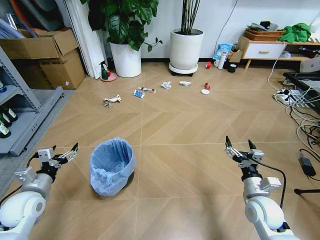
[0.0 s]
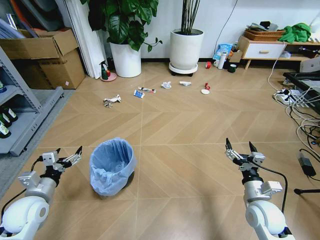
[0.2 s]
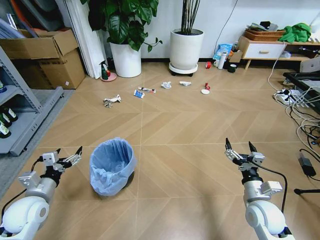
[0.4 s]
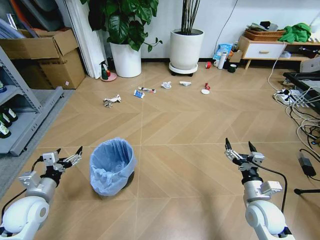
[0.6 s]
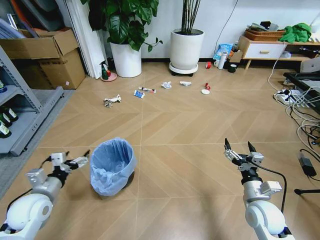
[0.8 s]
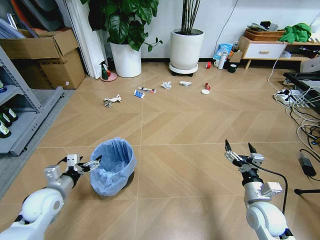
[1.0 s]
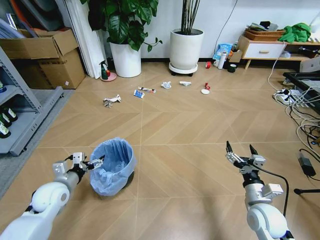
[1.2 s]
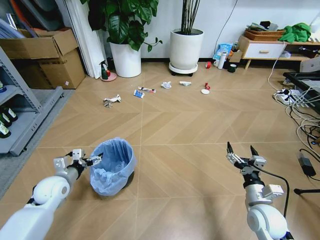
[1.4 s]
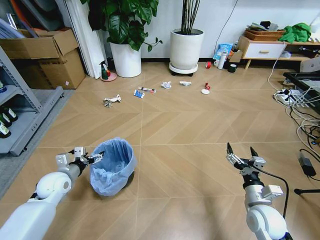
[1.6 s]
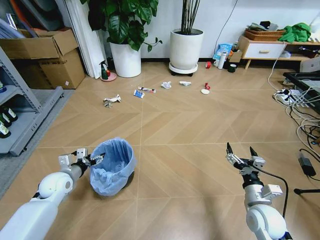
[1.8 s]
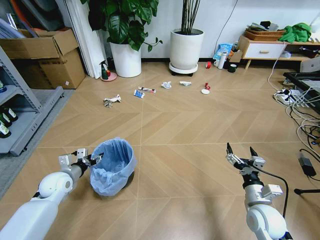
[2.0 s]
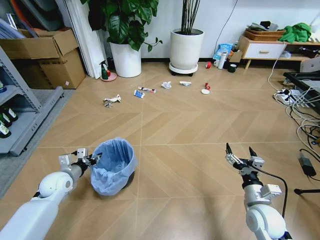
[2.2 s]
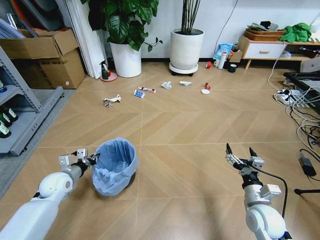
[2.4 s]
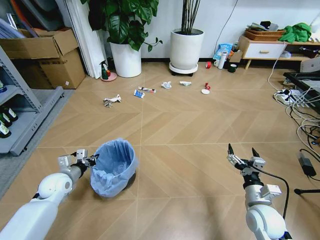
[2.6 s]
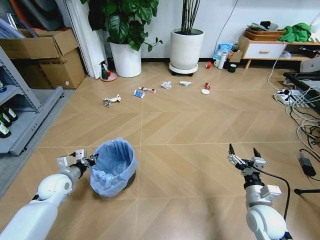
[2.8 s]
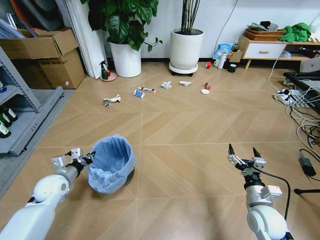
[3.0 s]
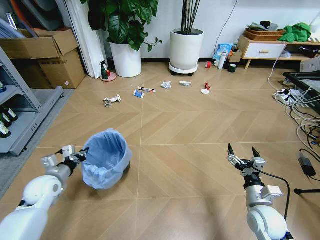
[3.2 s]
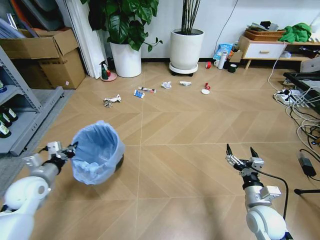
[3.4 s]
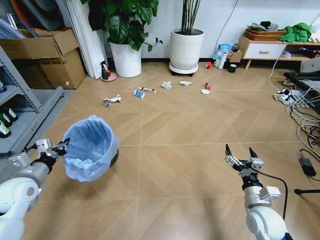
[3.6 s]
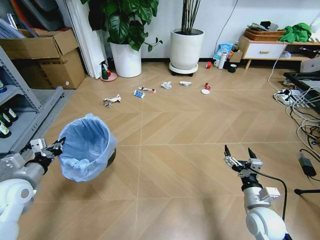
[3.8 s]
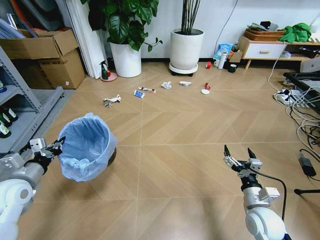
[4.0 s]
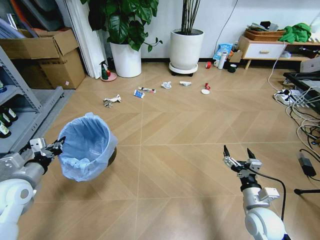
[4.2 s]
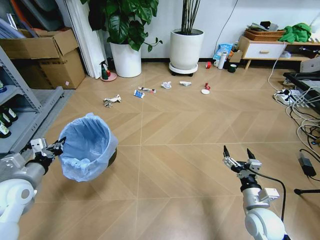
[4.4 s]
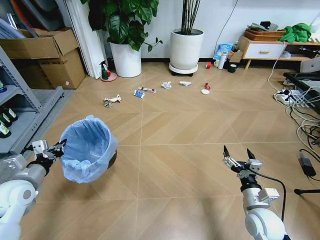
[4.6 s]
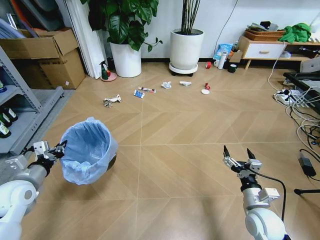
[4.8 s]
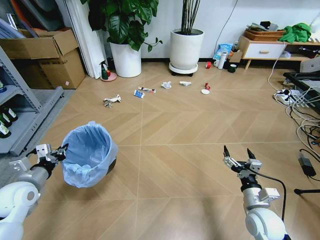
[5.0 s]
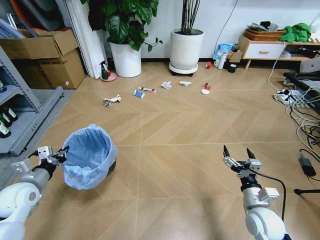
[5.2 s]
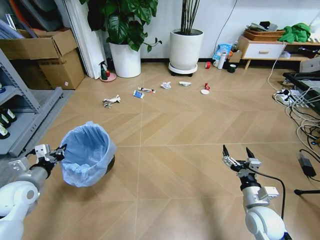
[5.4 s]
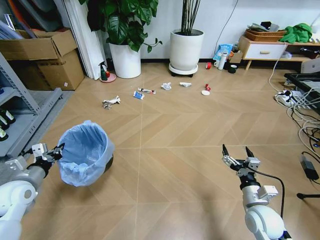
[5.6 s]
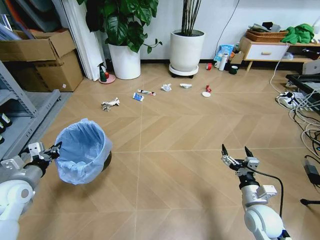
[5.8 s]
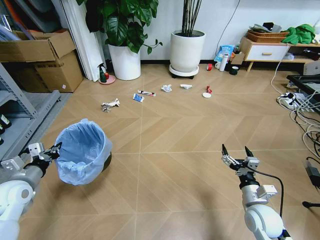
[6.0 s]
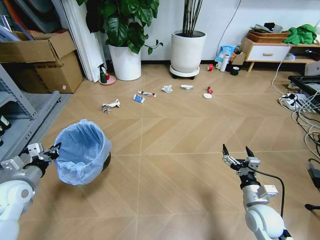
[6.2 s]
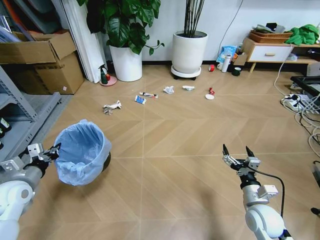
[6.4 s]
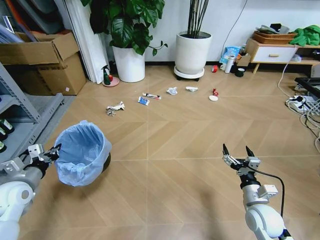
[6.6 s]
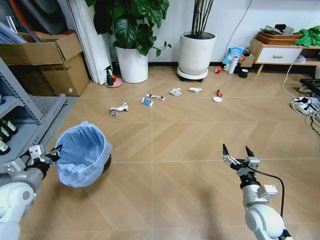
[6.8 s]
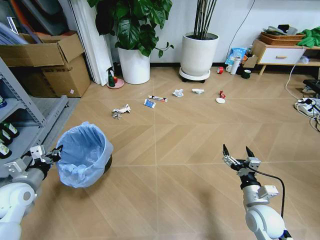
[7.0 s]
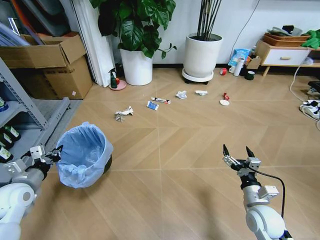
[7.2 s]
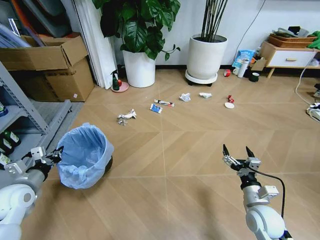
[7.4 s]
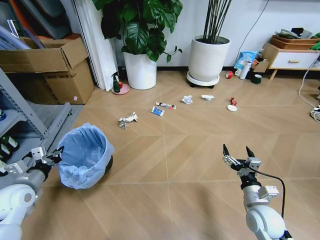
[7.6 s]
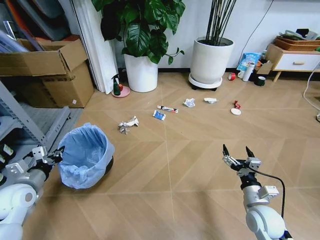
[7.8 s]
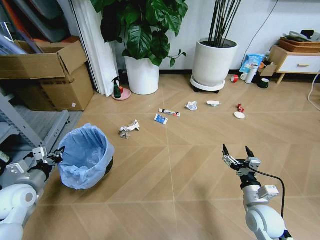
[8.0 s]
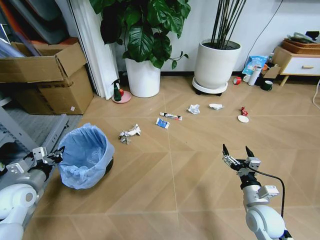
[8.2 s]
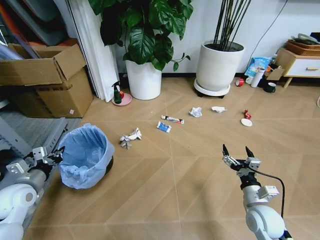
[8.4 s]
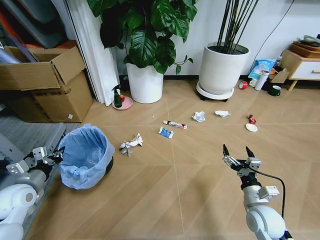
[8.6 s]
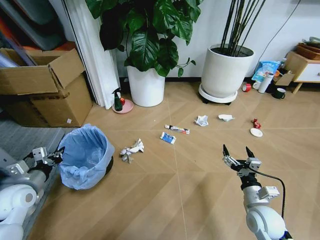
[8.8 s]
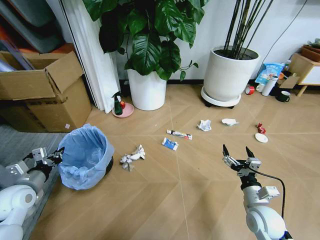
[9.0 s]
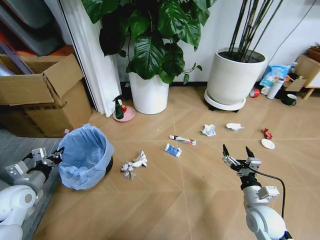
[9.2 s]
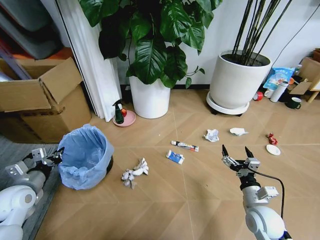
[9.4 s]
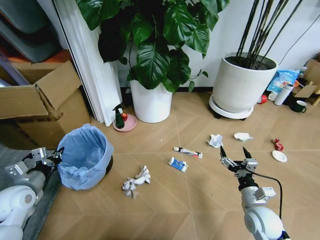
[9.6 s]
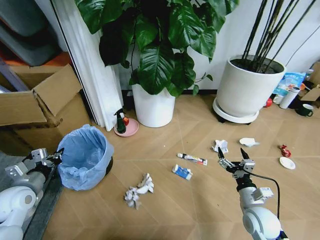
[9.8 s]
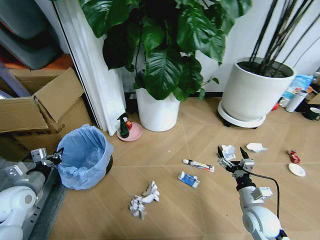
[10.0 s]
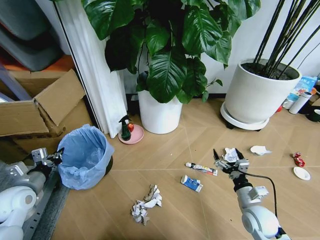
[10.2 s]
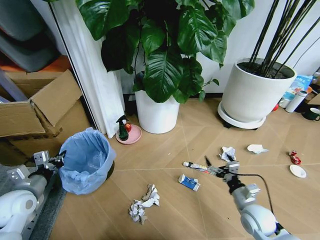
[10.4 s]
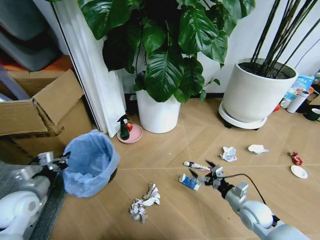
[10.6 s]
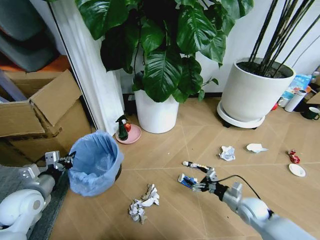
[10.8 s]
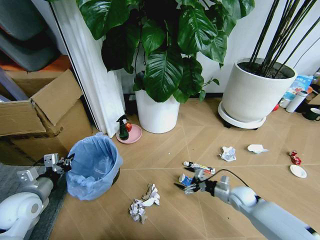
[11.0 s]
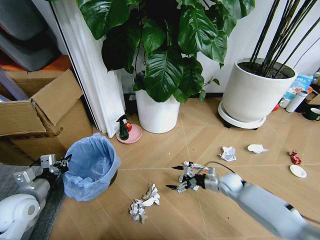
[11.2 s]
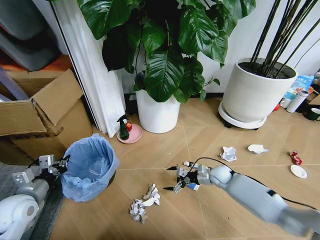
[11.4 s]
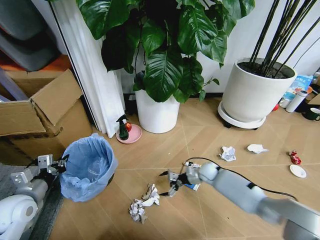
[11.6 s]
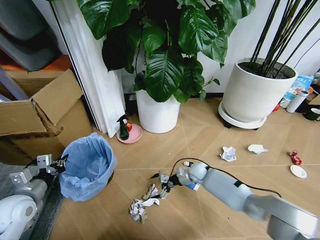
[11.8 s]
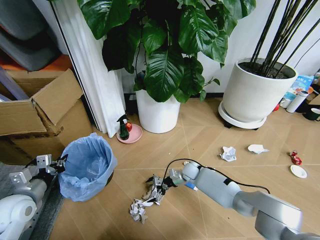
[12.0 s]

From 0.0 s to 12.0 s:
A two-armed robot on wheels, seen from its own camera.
Task of the whole recording: Pick up the trash bin and place the garbage on the floor into it.
From 1.6 s to 3.0 s: The left gripper closes its fingers.
From 3.0 s to 4.4 s: The left gripper travels upward and backward by approximately 10 cm.
From 10.4 s to 12.0 s: The right gripper travels forward and to the left by about 30 cm.

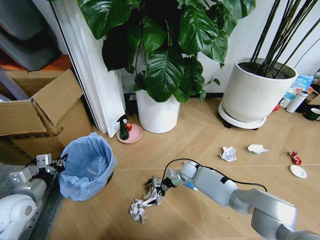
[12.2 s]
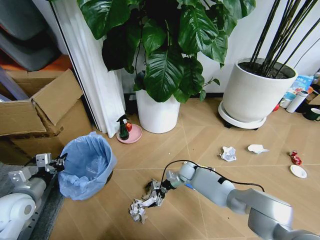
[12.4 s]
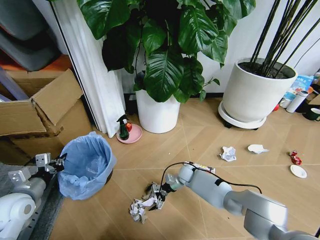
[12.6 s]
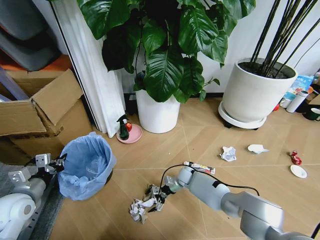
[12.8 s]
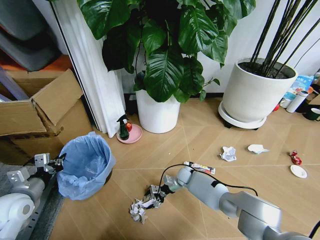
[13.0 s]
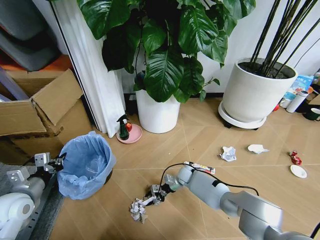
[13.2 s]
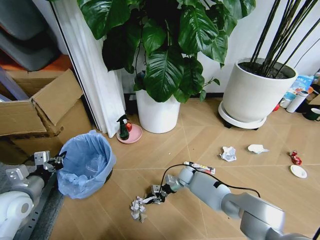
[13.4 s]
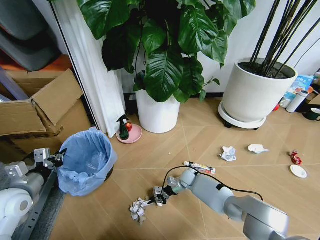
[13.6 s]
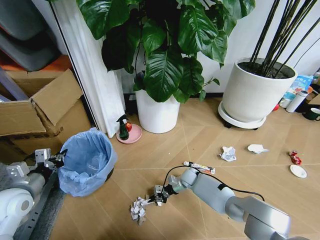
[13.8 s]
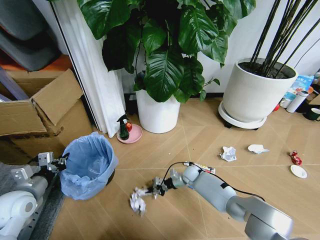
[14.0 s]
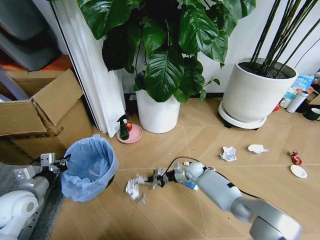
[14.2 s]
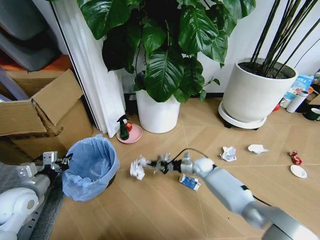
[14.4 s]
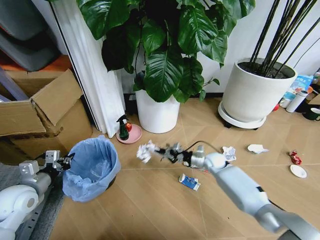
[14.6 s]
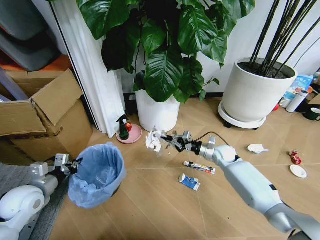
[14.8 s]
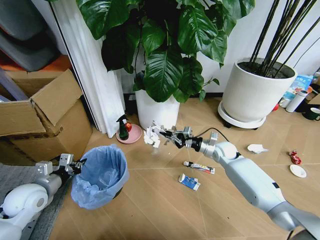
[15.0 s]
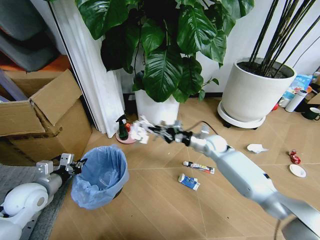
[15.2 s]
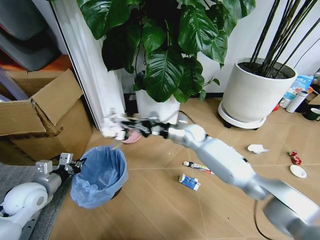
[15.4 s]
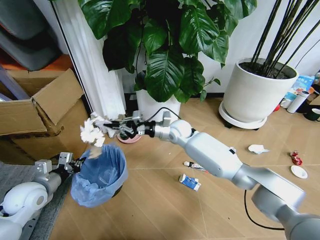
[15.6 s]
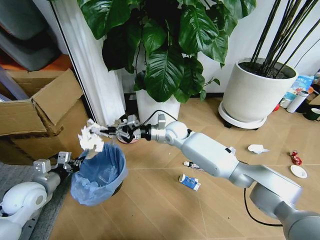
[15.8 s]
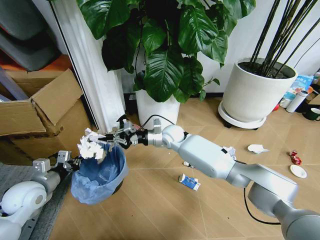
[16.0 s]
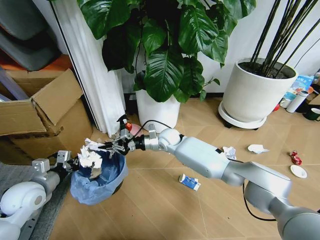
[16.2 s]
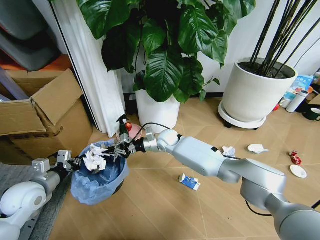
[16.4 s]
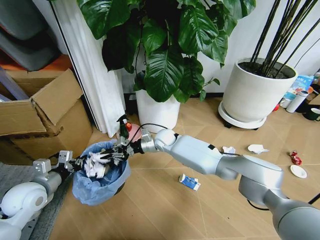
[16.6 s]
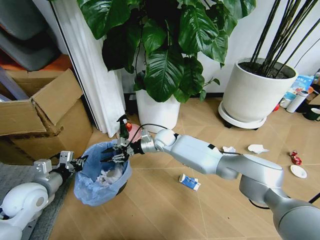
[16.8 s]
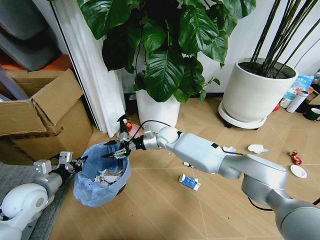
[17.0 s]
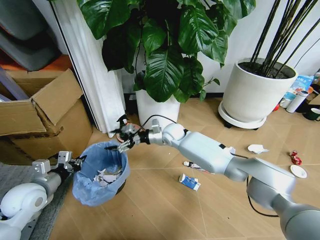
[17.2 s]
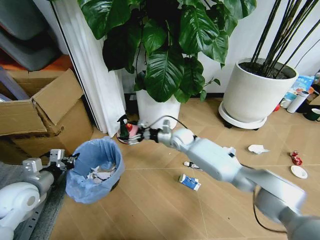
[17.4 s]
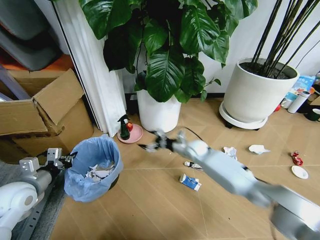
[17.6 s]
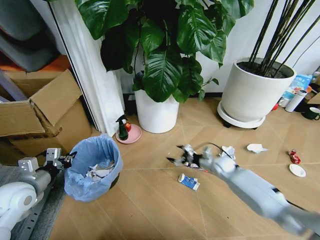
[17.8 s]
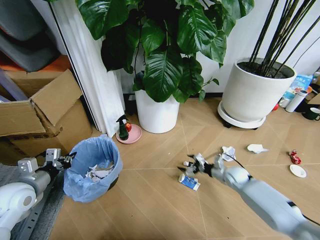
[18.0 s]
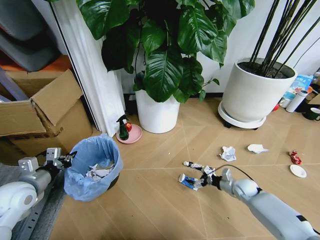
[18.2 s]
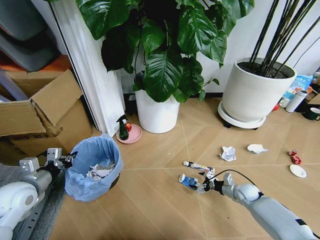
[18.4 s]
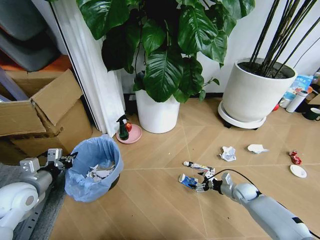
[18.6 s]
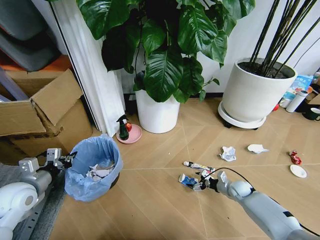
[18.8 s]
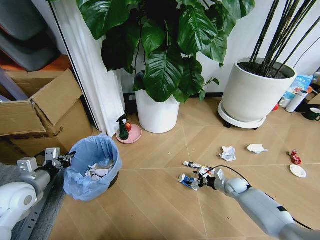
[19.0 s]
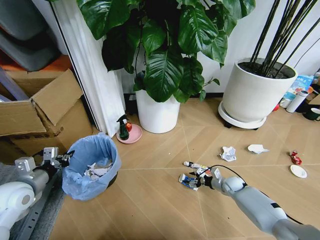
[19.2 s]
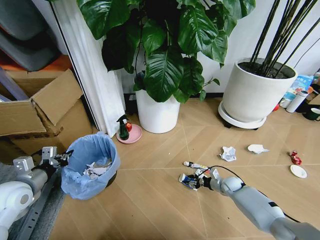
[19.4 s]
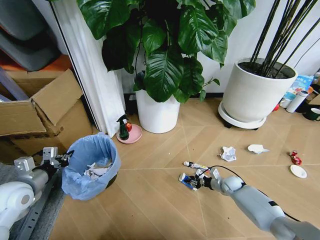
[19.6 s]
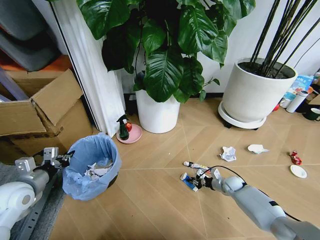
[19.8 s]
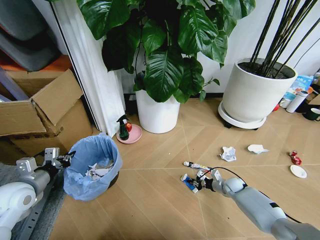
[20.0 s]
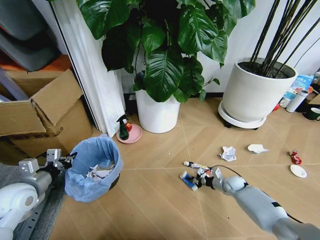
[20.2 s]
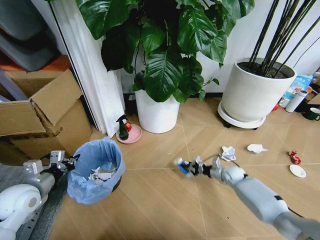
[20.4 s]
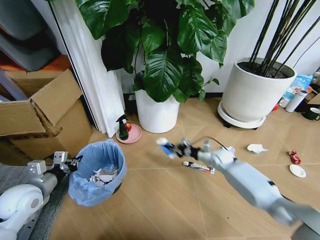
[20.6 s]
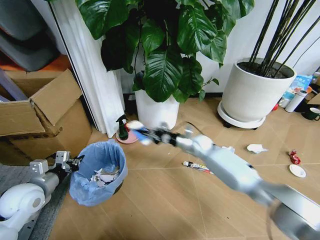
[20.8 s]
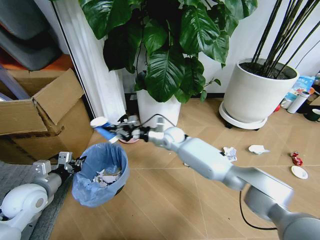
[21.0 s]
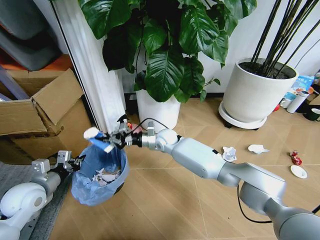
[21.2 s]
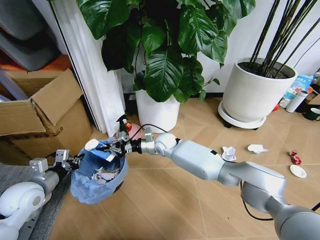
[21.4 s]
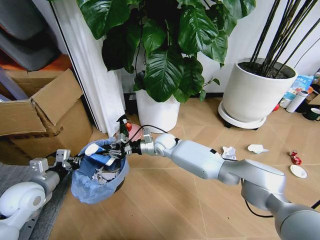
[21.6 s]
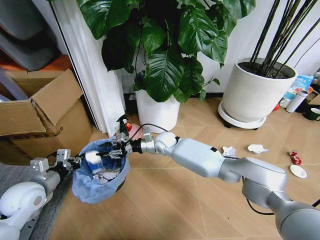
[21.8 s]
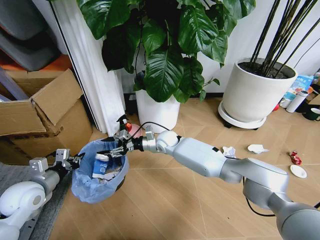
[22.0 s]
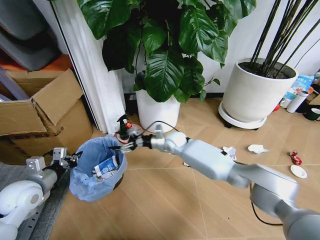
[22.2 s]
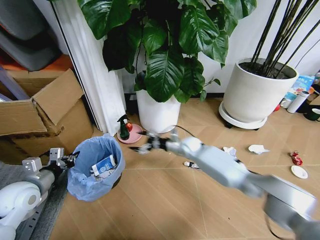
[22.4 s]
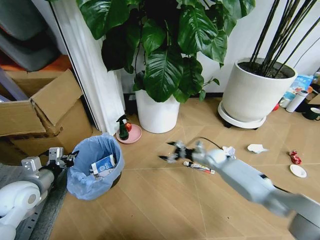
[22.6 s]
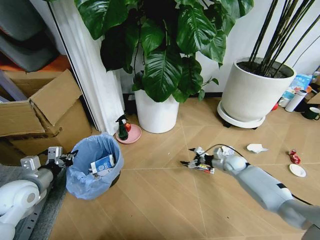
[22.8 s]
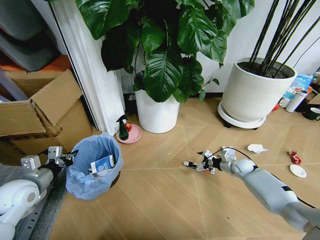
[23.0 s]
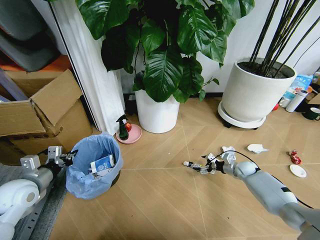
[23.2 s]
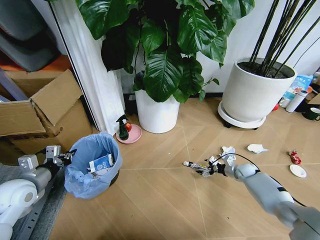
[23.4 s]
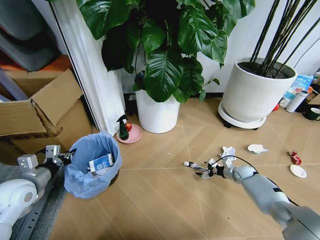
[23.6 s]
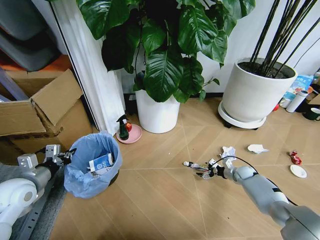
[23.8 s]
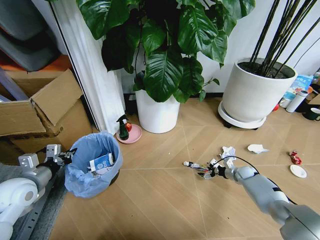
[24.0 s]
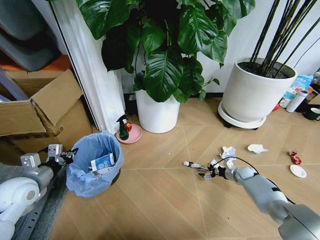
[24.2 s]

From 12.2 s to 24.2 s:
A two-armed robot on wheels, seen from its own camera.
Task of the whole recording: Pick up the trash bin and place the garbage on the floor into it.
From 12.2 s to 13.8 s: The right gripper closes.
From 13.8 s to 15.2 s: The right gripper travels upward by some 20 cm.
From 15.2 s to 16.6 s: The right gripper is displaced to the left by approximately 20 cm.
From 16.6 s to 18.2 s: The right gripper travels to the right, downward and backward by some 40 cm, and opens its fingers.
From 18.2 s to 19.8 s: The right gripper shifts by roughly 5 cm, and closes.
From 19.8 s to 21.2 s: The right gripper moves to the left and upward, approximately 40 cm.
From 21.2 s to 22.6 s: The right gripper travels to the right and downward by roughly 25 cm, and opens.
From 22.6 s to 24.2 s: The right gripper shifts approximately 20 cm to the right and downward.
